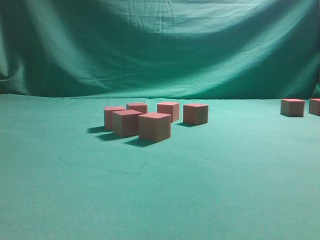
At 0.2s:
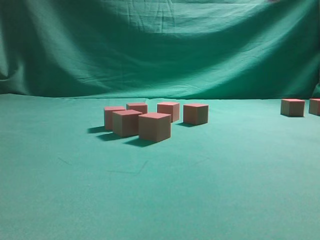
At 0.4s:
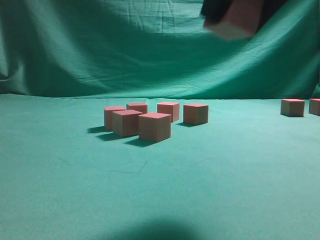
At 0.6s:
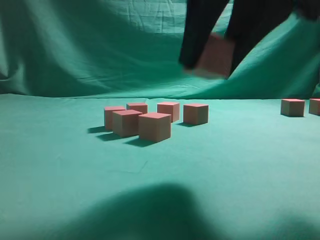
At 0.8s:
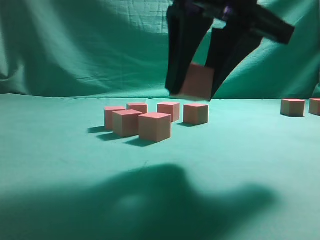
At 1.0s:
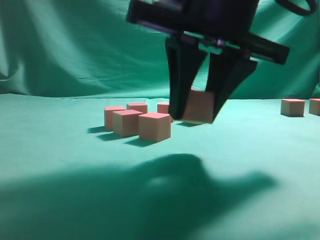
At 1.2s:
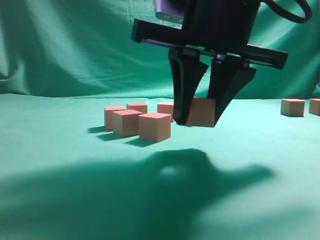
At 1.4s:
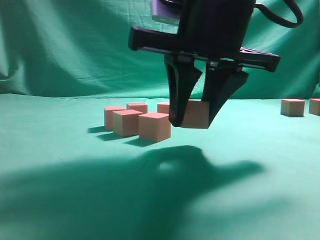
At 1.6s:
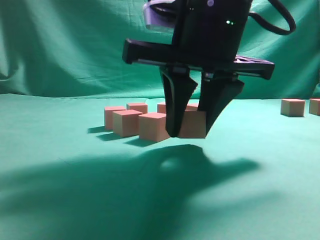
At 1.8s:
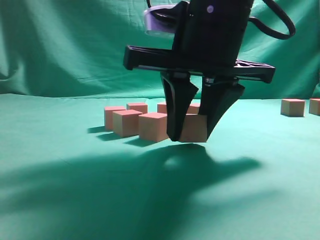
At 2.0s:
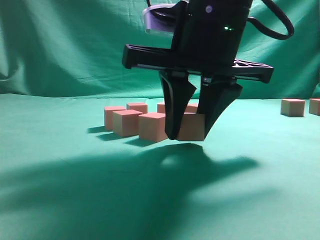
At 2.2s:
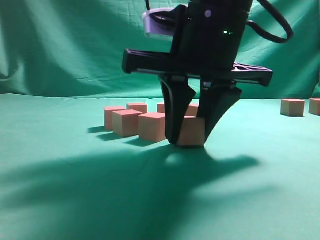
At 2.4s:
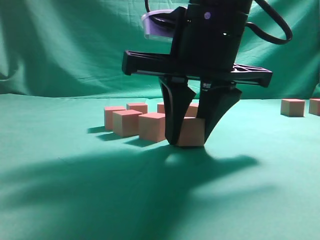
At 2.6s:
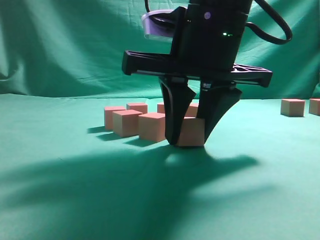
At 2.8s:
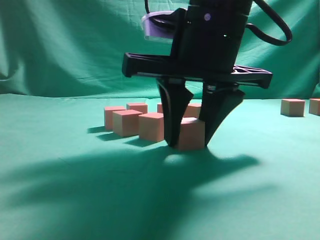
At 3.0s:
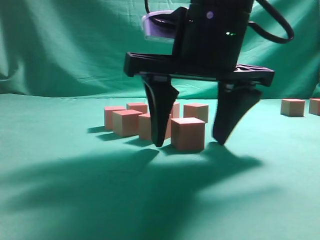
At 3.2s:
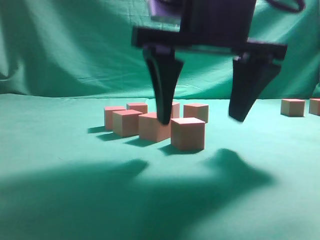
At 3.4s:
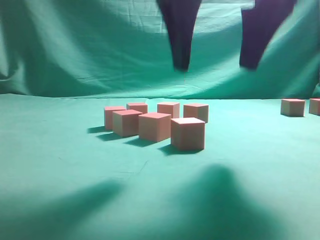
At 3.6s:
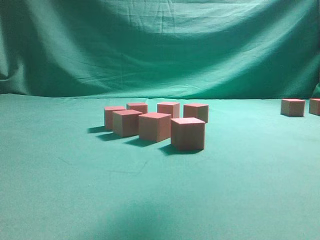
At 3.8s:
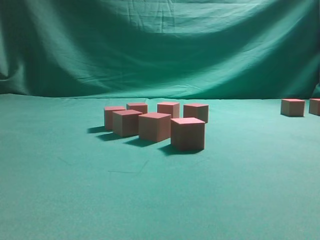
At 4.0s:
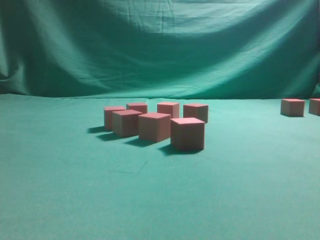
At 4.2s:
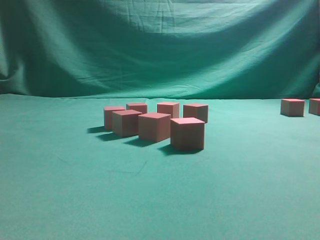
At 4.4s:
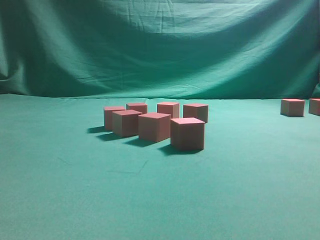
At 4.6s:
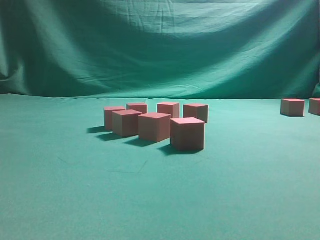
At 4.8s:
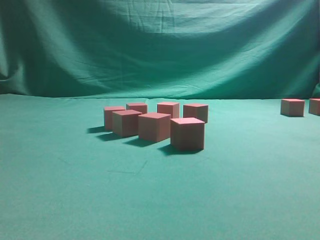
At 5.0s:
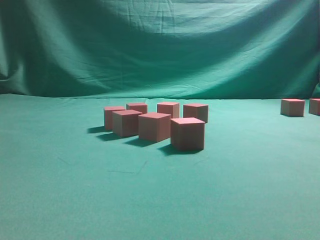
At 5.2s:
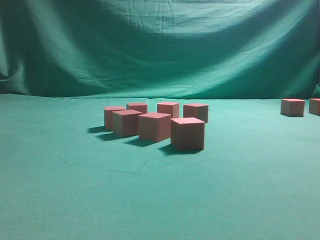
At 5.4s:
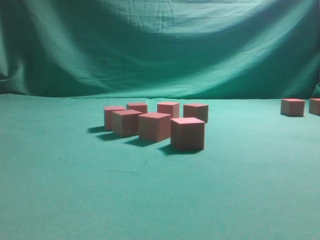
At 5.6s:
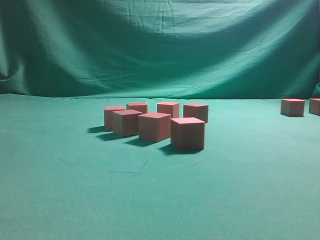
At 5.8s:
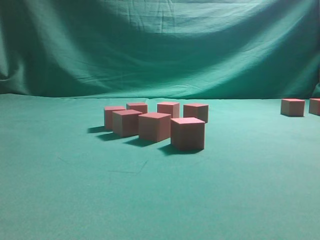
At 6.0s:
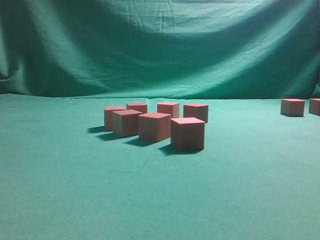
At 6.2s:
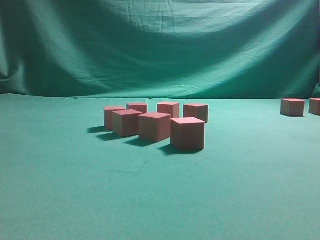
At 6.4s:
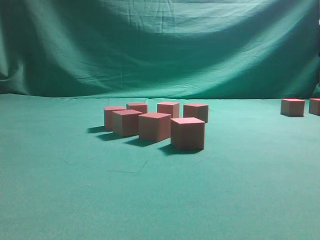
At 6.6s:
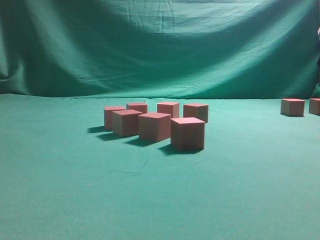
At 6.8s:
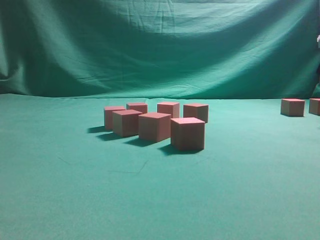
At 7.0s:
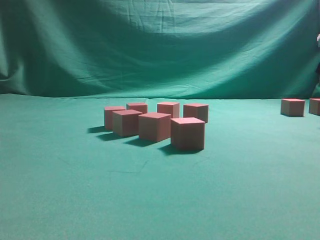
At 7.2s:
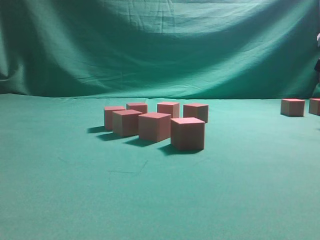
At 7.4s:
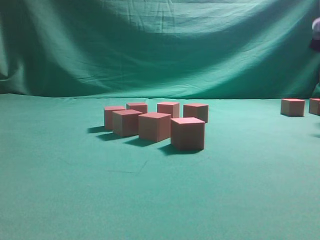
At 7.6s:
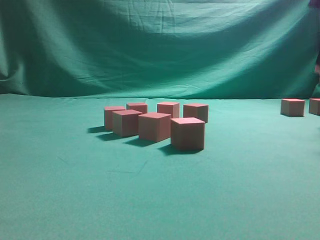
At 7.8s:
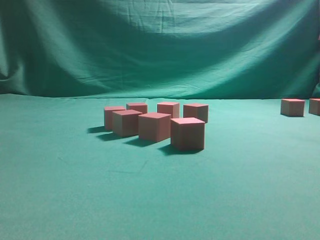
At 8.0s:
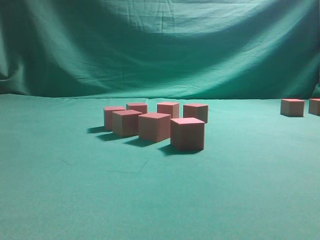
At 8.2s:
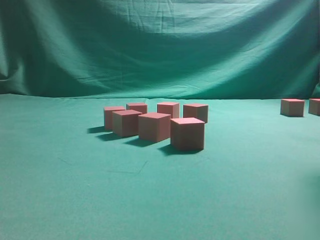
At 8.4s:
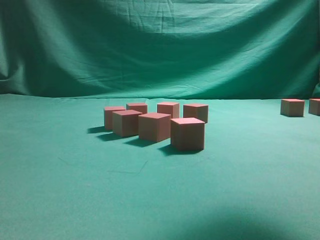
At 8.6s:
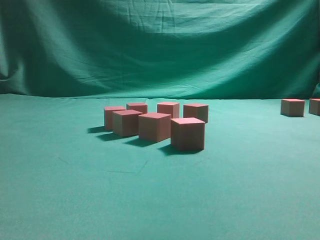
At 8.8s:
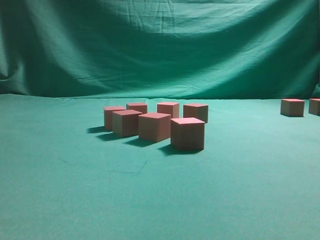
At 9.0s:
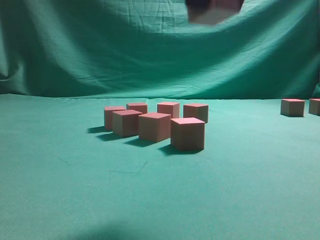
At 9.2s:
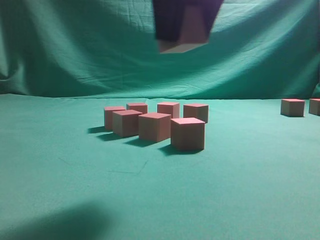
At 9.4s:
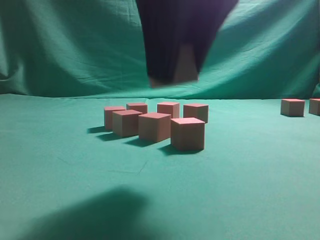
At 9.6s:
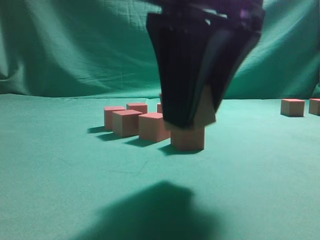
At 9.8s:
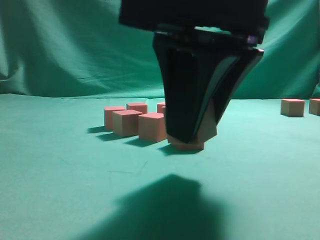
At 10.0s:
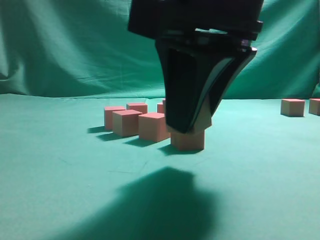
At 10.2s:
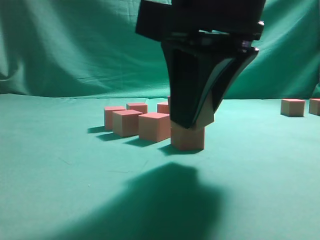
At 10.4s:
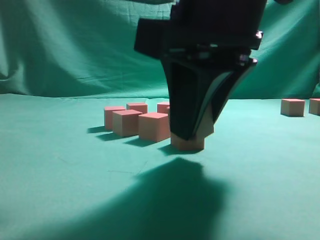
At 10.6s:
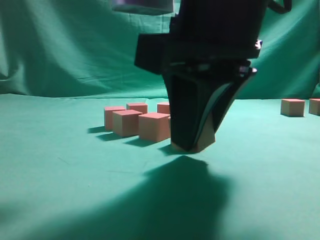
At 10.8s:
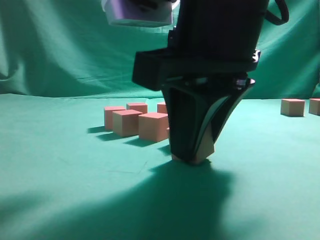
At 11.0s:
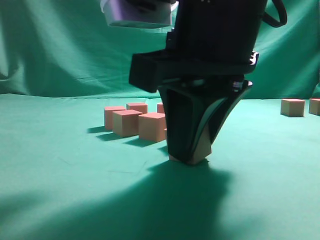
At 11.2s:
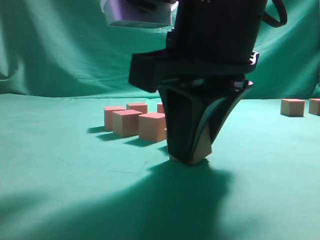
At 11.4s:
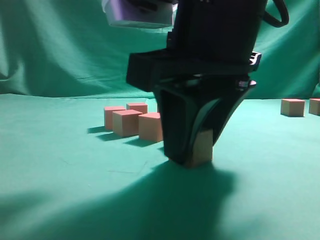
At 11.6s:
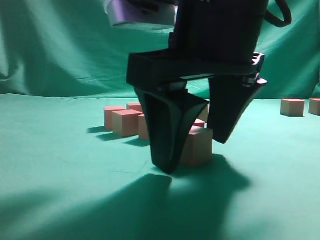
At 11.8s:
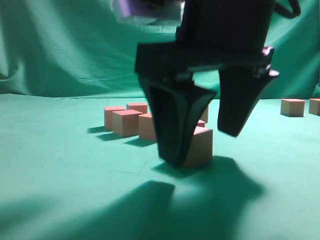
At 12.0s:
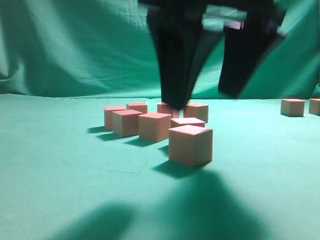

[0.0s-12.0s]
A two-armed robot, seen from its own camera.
Task of the whole recording: pick up the multiple cubes in two columns one by one and place them in another position on the table.
Step, 0.0s to 3.2s: Place the block at the correct position to assemble the letter S.
Step, 3.6s to 7.4s: Pick up the block on the table.
Step, 7.6s to 12.0s: Place the block at the correct position to assemble the letter S.
0.0s to 1.6s: The right gripper goes roughly 20 cm to the left, downward and forward.
1.6s to 3.0s: The right gripper opens up.
3.0s to 4.4s: The right gripper travels upward and to the right by roughly 35 cm.
7.6s to 9.0s: The right gripper travels to the left and backward by some 30 cm.
9.0s to 10.4s: The right gripper heads downward, covering roughly 10 cm.
10.4s to 12.0s: The right gripper opens up.

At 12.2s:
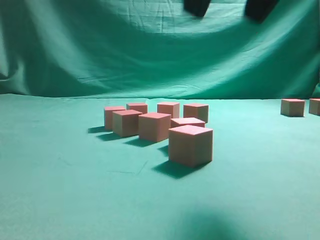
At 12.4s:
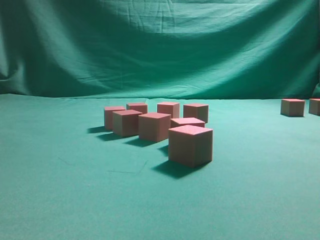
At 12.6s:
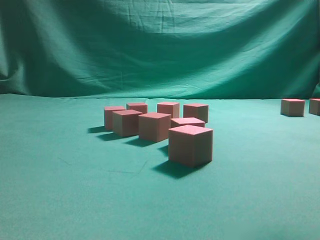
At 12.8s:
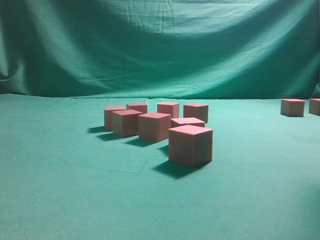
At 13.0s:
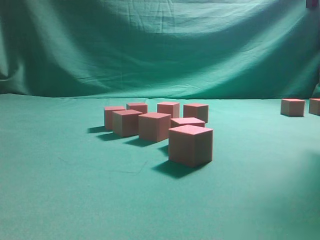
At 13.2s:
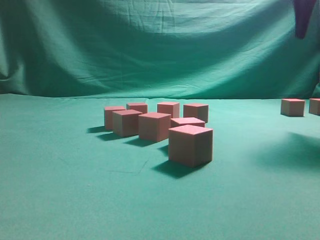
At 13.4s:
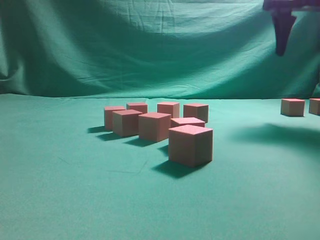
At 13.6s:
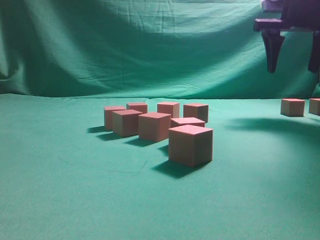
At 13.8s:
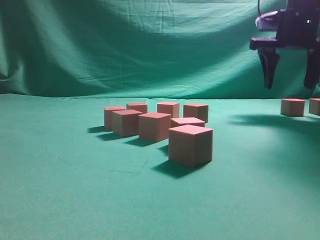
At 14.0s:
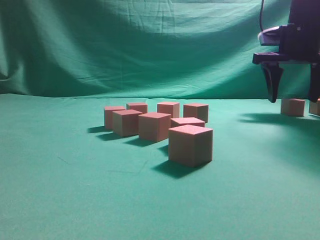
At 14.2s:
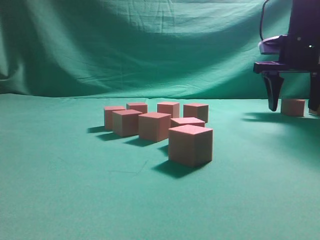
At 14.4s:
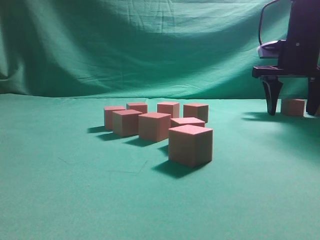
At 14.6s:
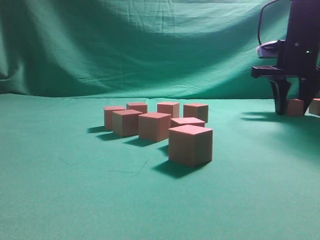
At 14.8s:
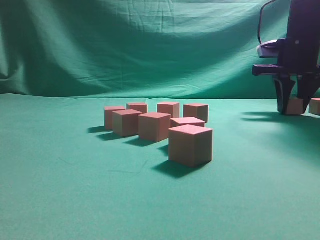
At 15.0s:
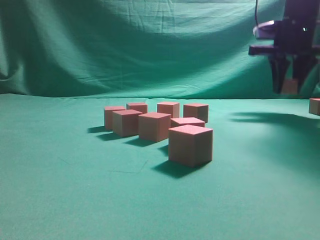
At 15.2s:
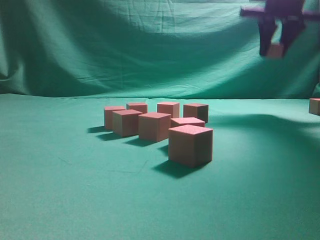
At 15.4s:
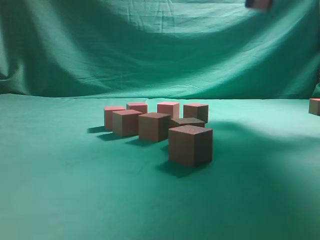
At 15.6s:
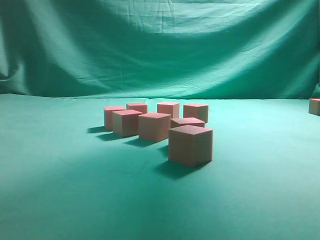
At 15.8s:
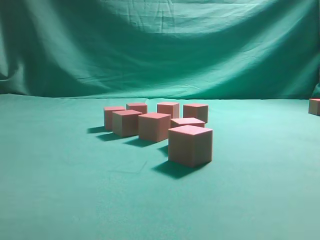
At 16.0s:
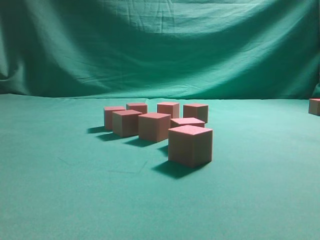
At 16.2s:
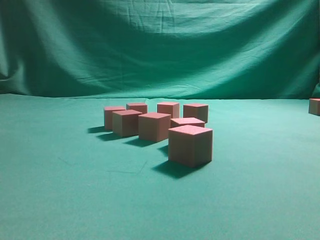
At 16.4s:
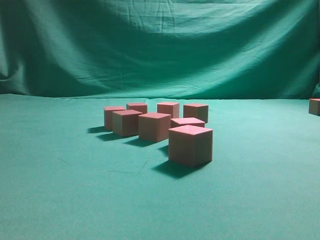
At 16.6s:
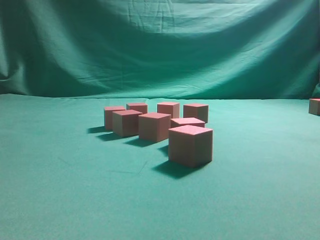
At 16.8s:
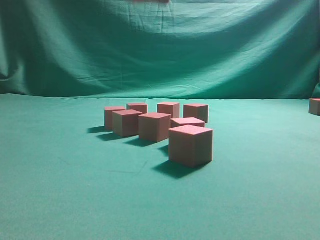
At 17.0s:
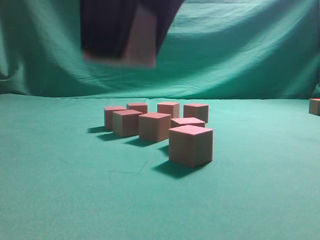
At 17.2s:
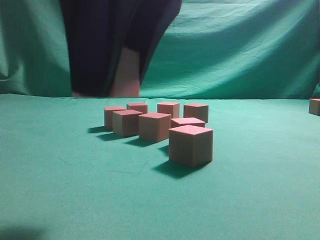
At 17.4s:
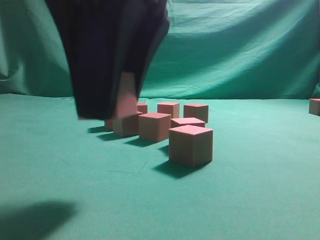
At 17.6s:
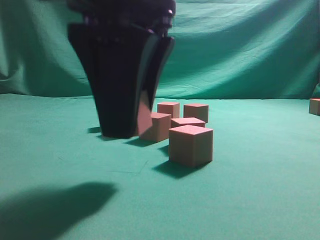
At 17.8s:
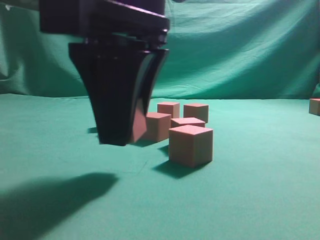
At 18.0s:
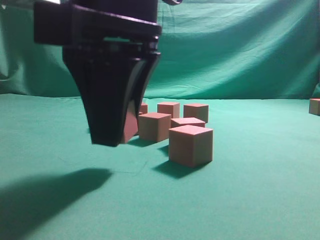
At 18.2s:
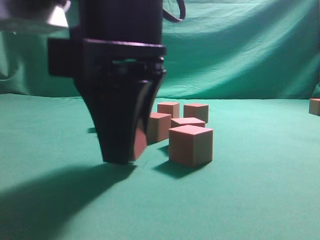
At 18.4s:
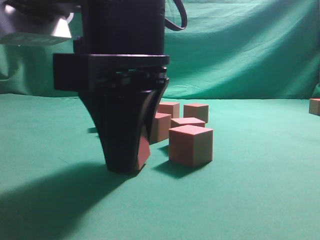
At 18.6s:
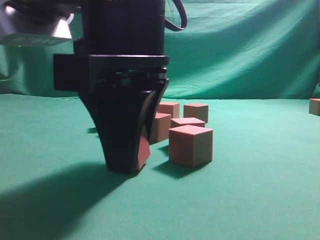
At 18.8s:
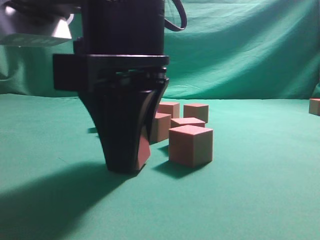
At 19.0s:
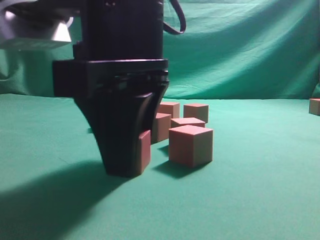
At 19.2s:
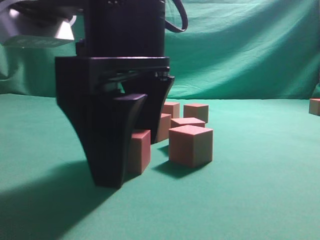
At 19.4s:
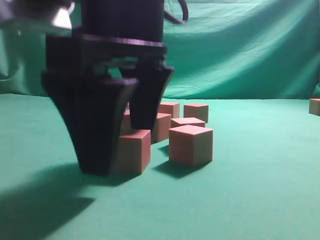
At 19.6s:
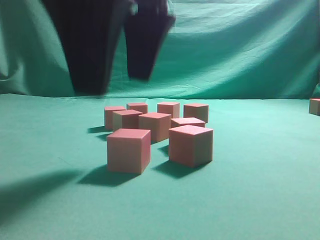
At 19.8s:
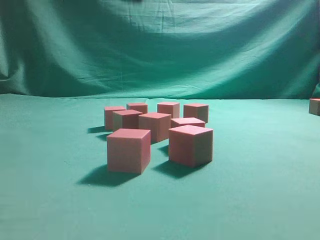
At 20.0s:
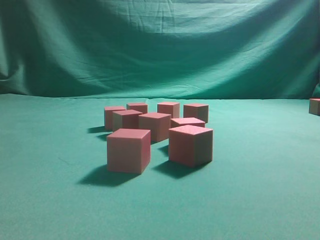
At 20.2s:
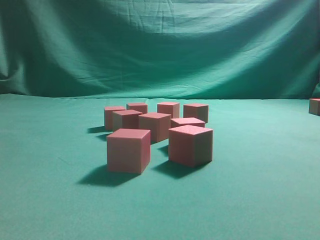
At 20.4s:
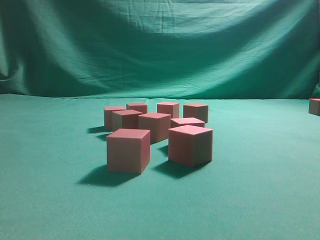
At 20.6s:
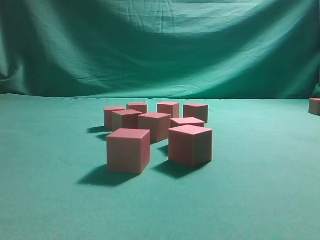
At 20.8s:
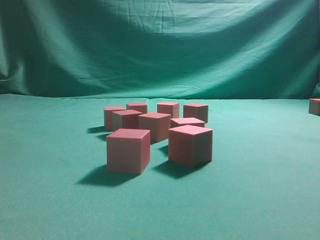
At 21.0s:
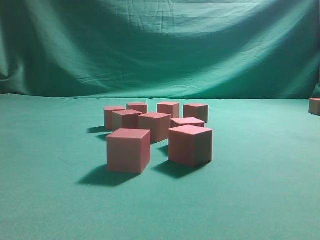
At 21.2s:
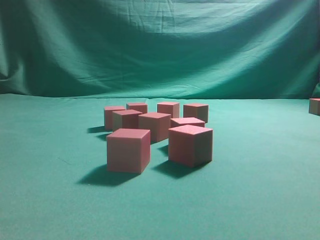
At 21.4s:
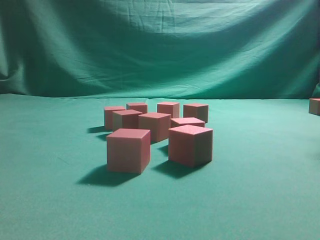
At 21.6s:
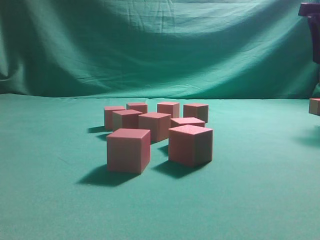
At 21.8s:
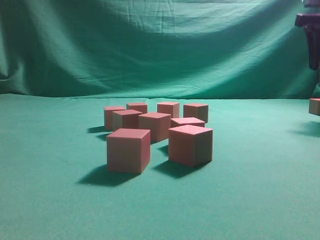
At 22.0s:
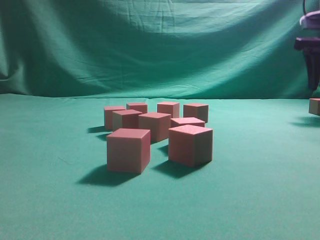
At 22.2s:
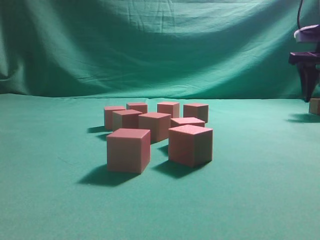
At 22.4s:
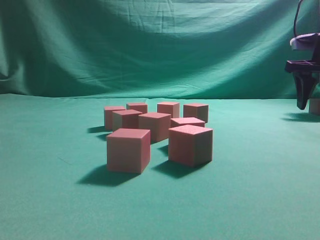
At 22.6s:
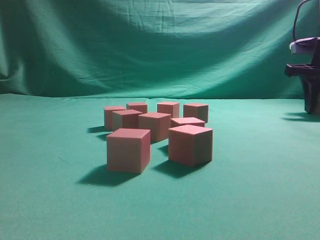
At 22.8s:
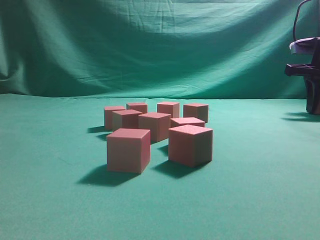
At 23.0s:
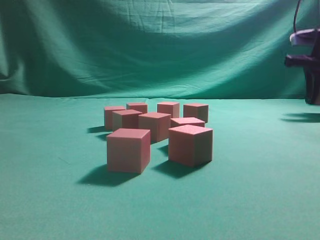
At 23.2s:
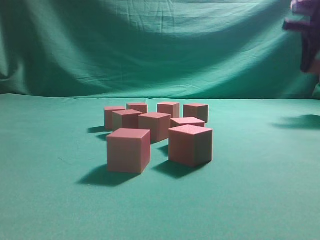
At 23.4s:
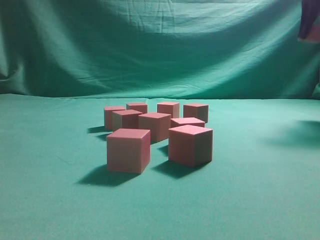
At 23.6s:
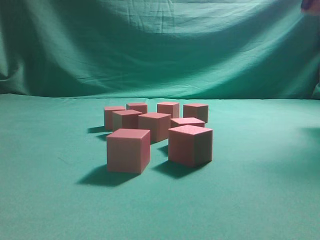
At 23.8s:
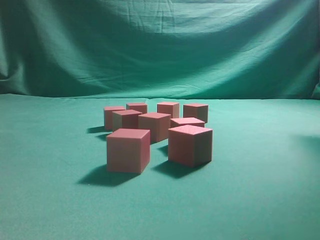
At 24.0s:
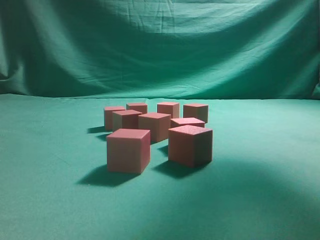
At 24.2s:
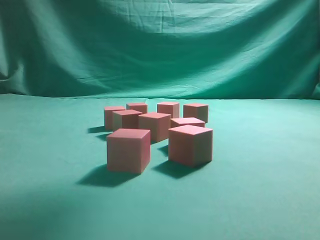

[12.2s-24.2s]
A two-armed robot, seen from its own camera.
Task of the whole recording: pick up the multiple cubes in two columns one by one and place them in another position on the table.
Step, 12.2s to 14.8s: Pick up the block on the table.
Step, 15.2s to 19.6s: Place the block at the correct position to assemble the letter S.
Step, 19.8s to 23.0s: Pick up the block on the table.
12.2s to 13.8s: The right gripper travels forward and to the right by approximately 30 cm.
13.8s to 15.2s: The right gripper heads upward, covering about 5 cm, and closes its fingers.
15.2s to 16.6s: The right gripper shifts approximately 35 cm backward and to the left.
16.6s to 18.2s: The right gripper shifts some 15 cm downward and to the left.
18.2s to 19.8s: The right gripper moves upward, about 10 cm, and opens its fingers.
21.2s to 22.6s: The right gripper is displaced downward and forward by roughly 20 cm.
22.6s to 24.2s: The right gripper heads upward, backward and to the left, covering roughly 30 cm.
